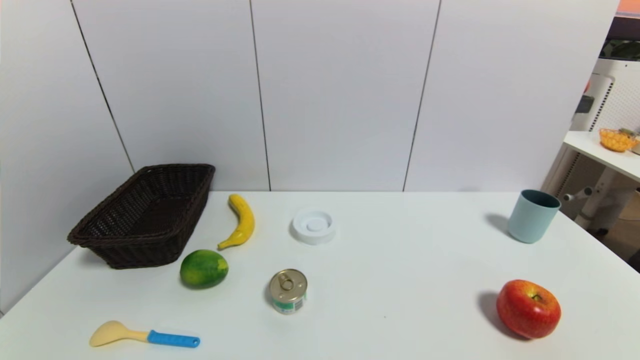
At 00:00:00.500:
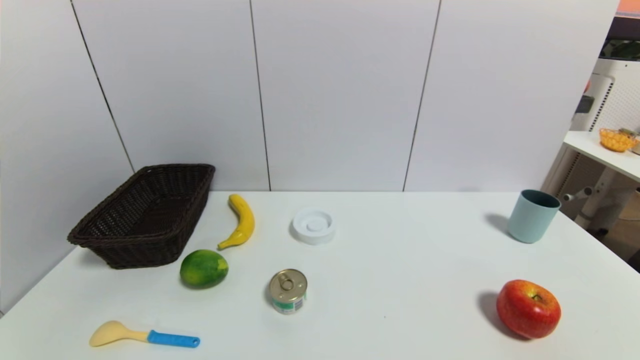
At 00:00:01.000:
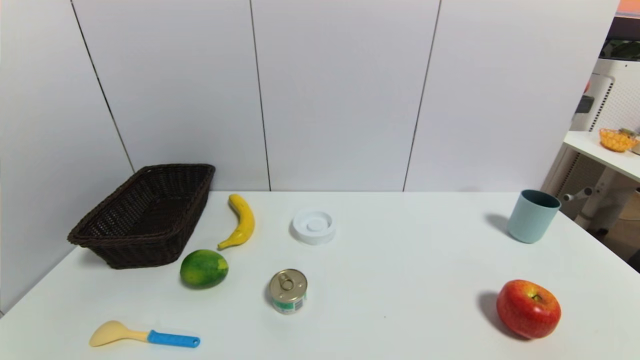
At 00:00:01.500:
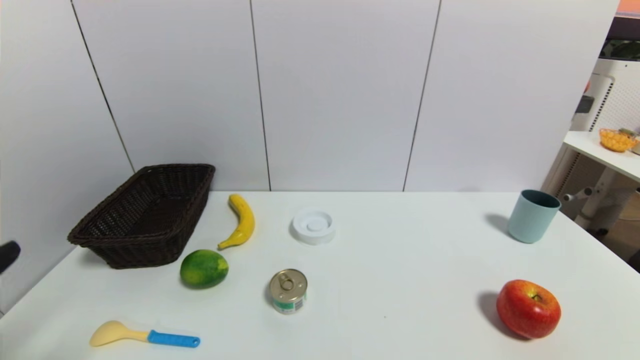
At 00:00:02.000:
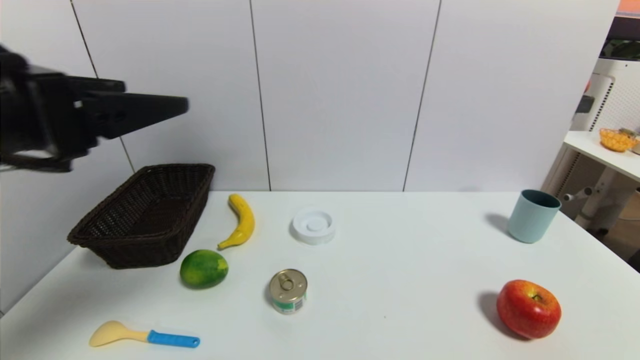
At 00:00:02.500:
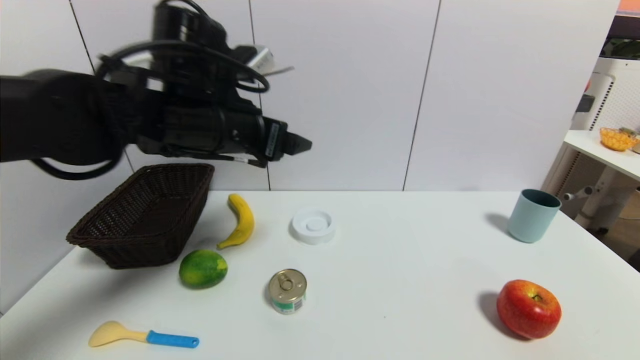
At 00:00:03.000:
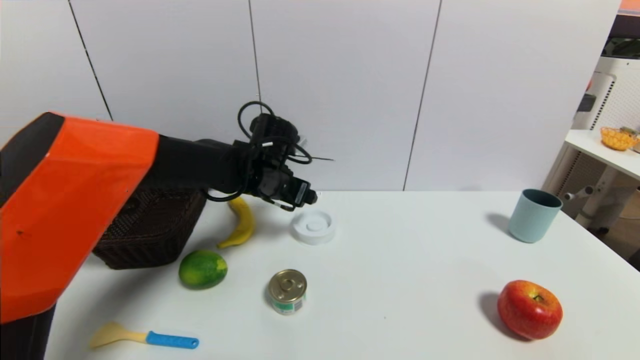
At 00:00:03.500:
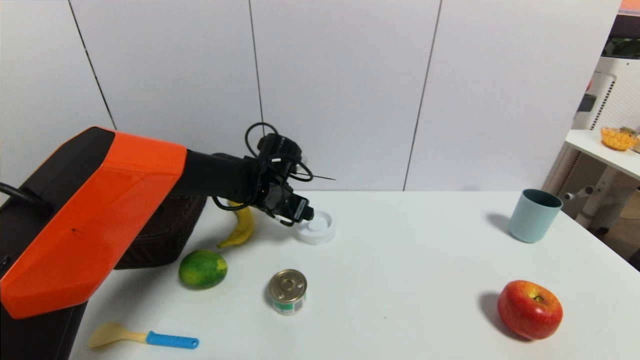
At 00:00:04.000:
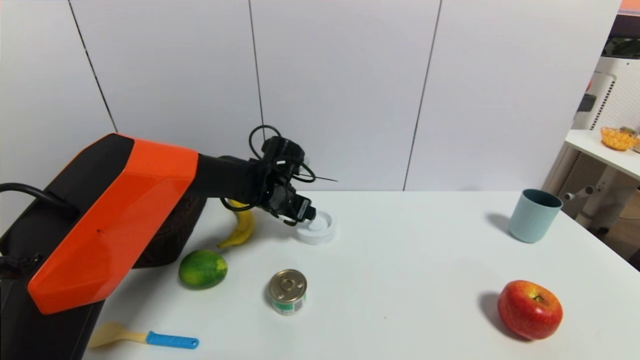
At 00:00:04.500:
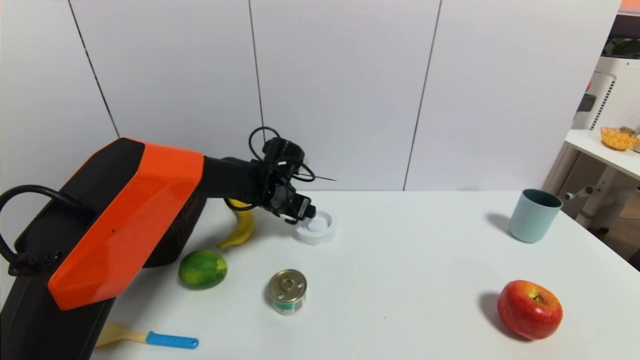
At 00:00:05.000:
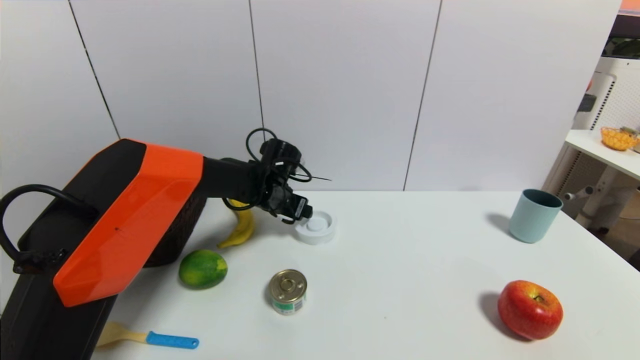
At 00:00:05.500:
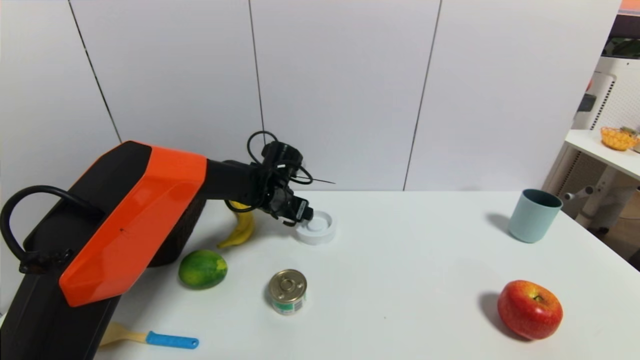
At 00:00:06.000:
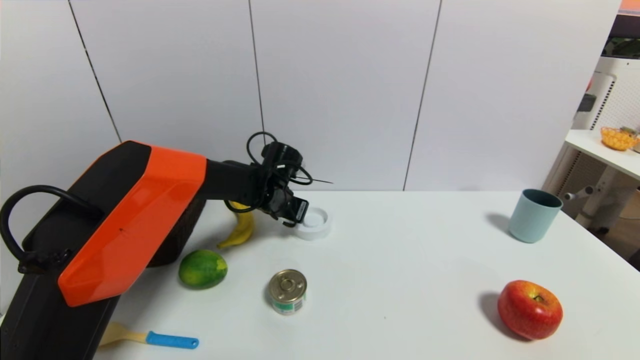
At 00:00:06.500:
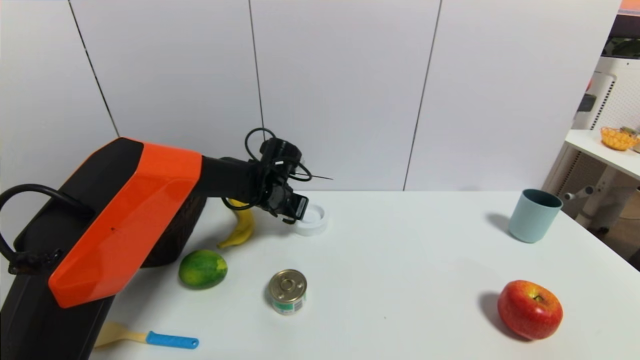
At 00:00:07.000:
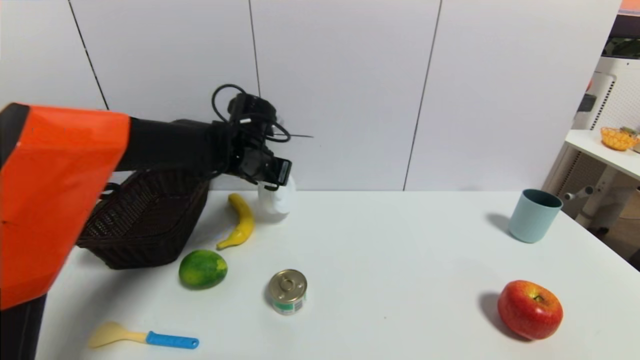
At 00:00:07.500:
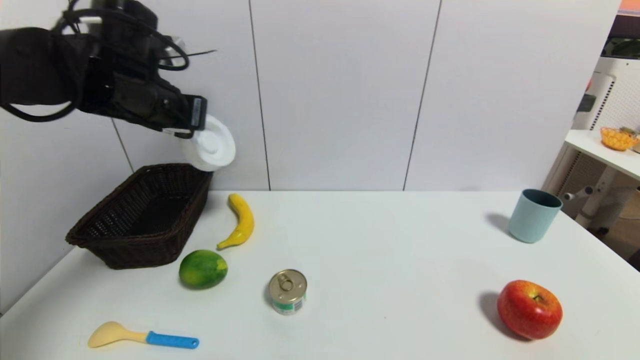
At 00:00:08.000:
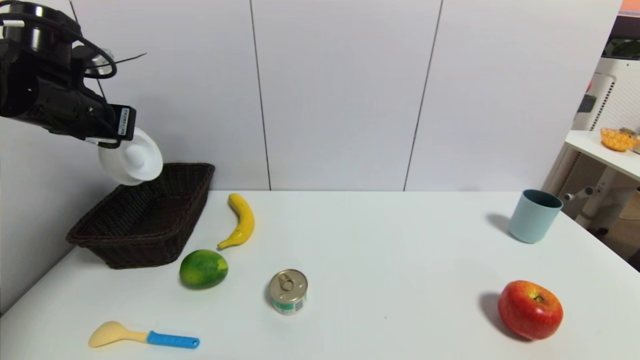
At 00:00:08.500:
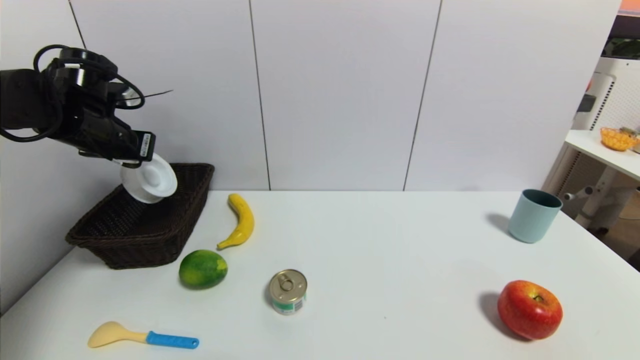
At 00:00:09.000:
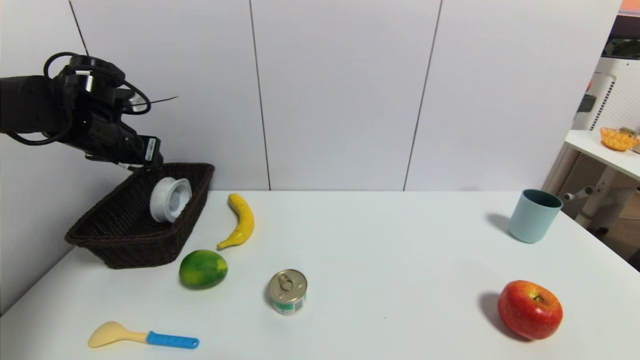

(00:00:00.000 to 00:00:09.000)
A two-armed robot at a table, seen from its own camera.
Task of the whole recording: use a gripper to pick the target object and place on the brown basket.
Step, 00:00:00.000 - 00:00:06.500: Grasp the tape with the left gripper.
00:00:00.000 - 00:00:02.000: The left gripper travels upward and forward by about 30 cm.
00:00:02.000 - 00:00:04.500: The left gripper goes about 40 cm forward, downward and to the right.
00:00:04.500 - 00:00:07.000: The left gripper shifts some 10 cm upward, and closes up.
00:00:07.000 - 00:00:09.000: The left gripper heads to the left, covering approximately 20 cm, and opens.

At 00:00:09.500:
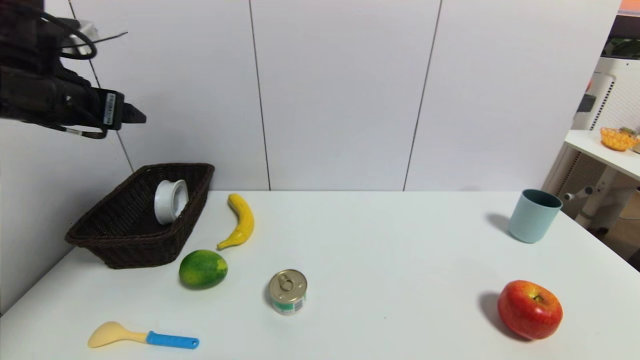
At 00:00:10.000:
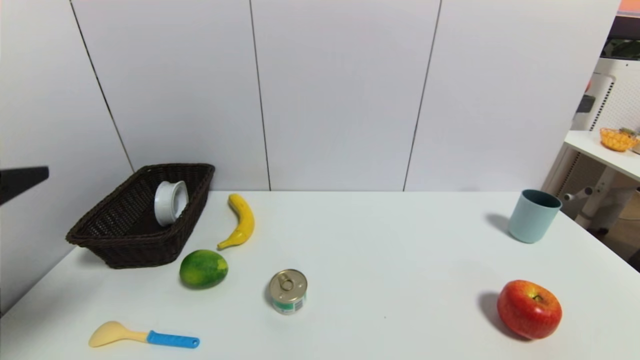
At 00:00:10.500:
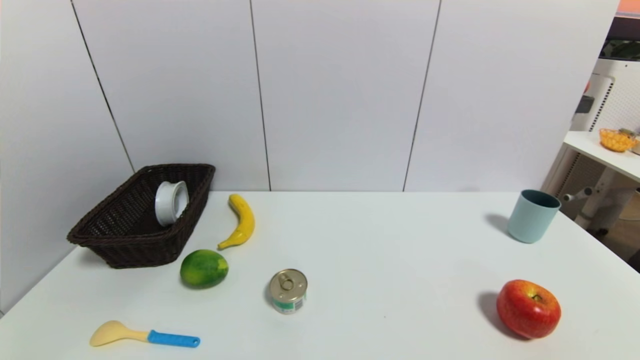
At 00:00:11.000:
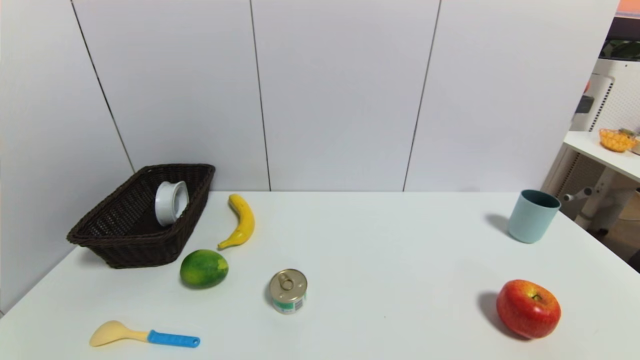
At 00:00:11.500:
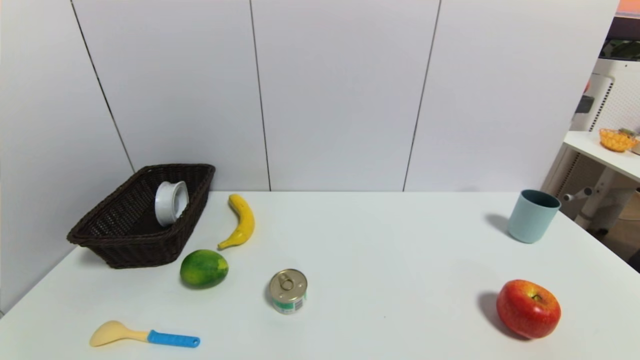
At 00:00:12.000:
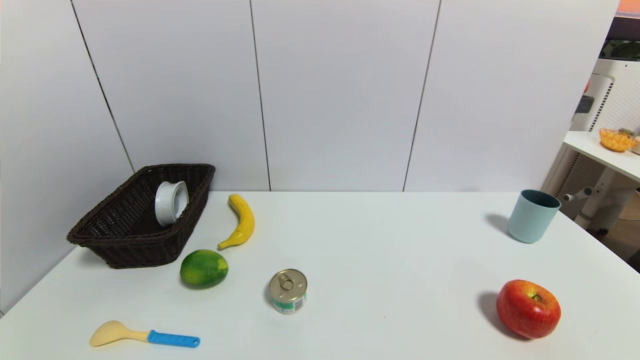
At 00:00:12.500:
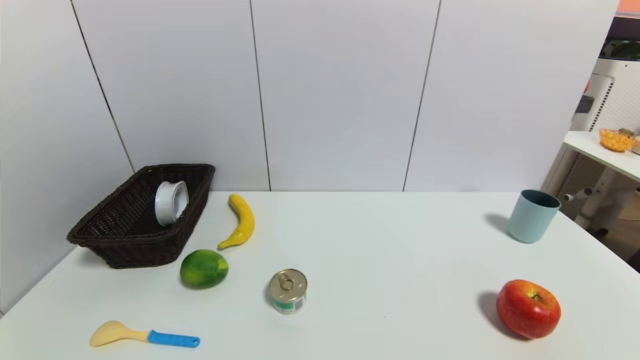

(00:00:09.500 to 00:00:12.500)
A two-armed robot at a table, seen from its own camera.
Task of the whole recording: use a gripper to pick the target object and place on the brown basket.
00:00:09.500 - 00:00:11.000: The left gripper goes approximately 40 cm backward and downward.

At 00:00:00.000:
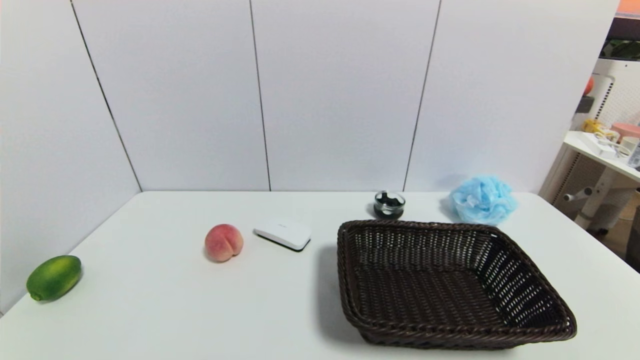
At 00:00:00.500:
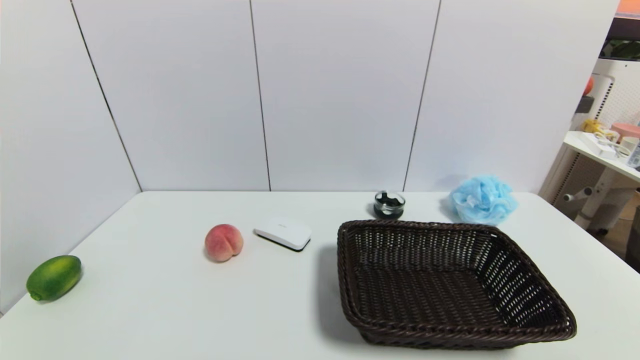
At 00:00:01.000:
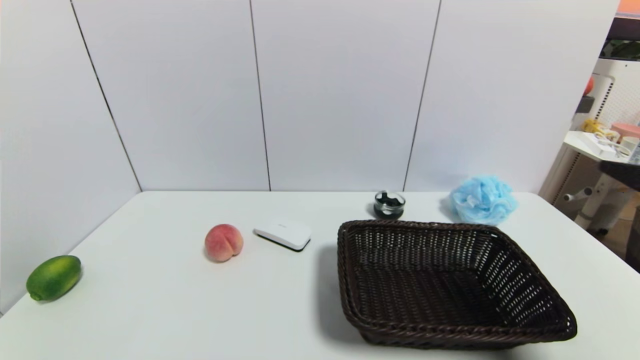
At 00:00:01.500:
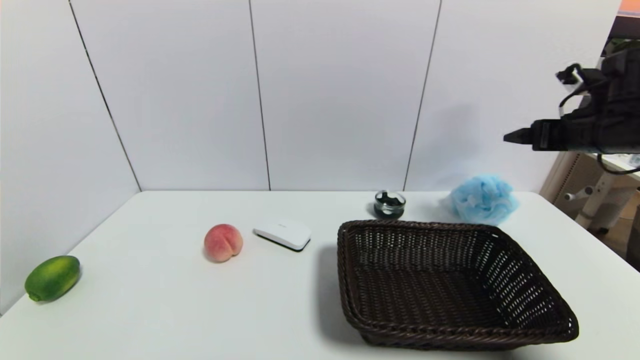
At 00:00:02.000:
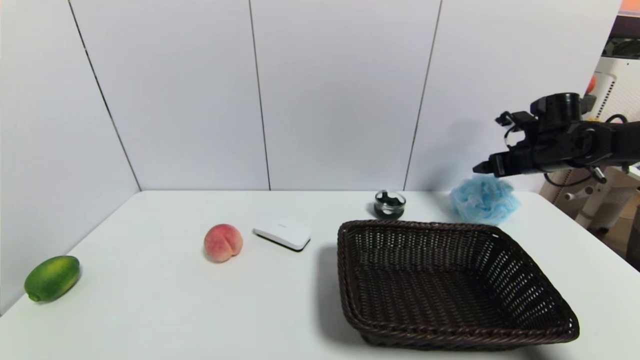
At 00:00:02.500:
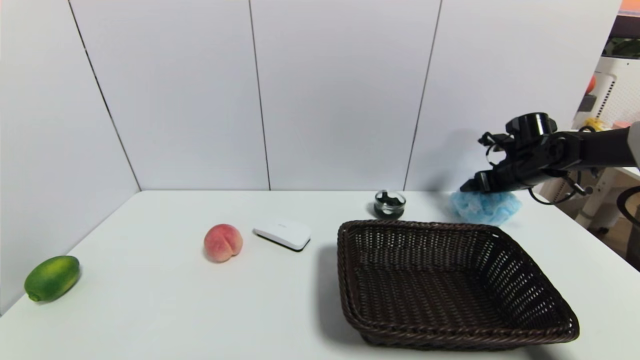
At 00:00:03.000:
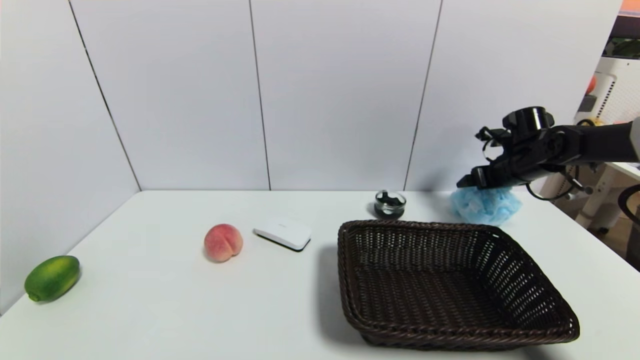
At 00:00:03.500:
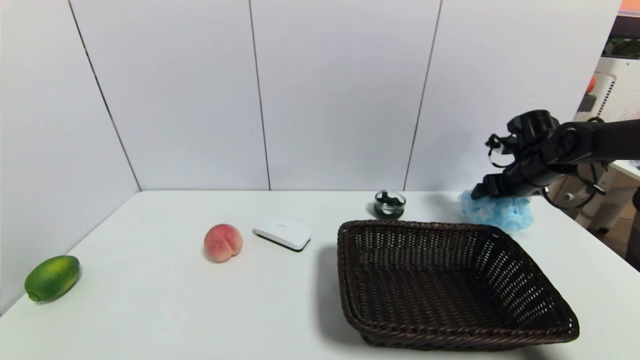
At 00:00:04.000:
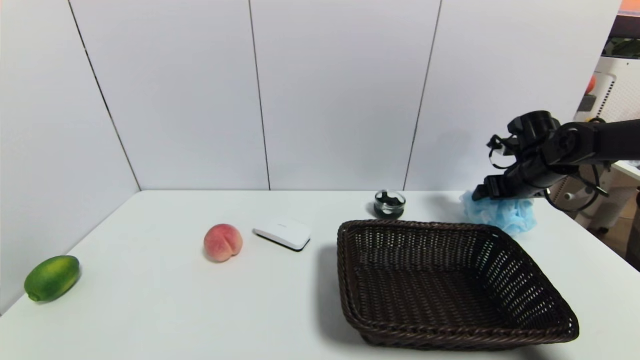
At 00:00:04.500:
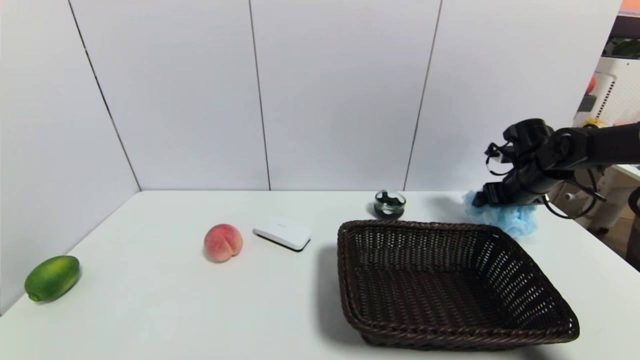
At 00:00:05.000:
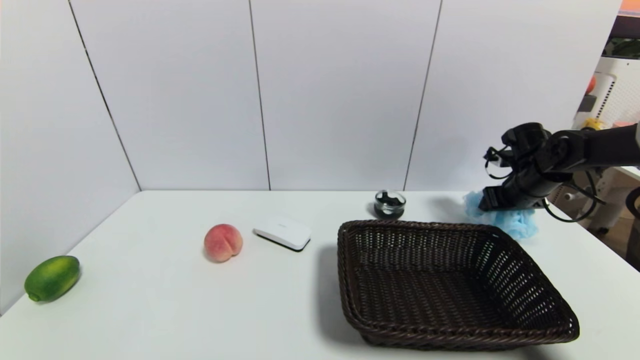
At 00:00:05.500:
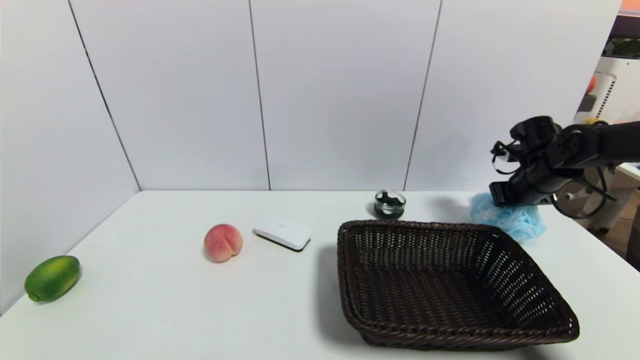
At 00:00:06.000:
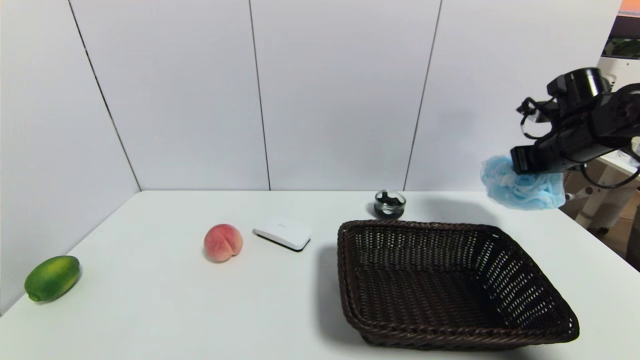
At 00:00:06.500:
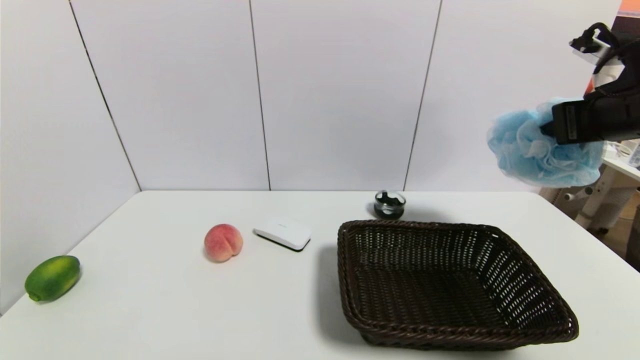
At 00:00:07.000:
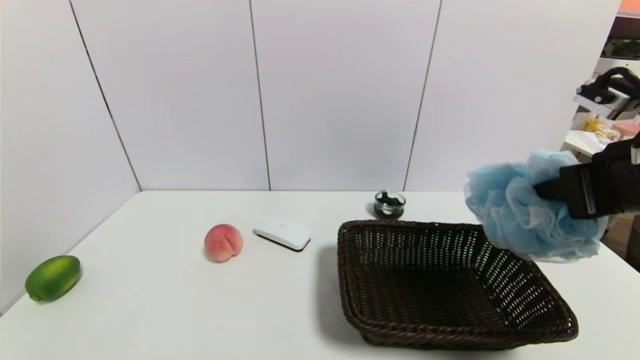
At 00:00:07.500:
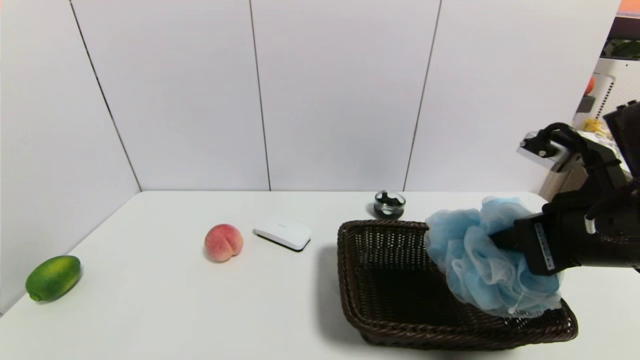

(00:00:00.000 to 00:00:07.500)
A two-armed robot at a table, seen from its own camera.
Task of the whole recording: use a gripper to pick the target object and place on the brown basket.
Step, 00:00:00.000 - 00:00:05.000: Grasp the shower sphere with the right gripper.
00:00:00.000 - 00:00:02.000: The right gripper shifts some 50 cm forward.
00:00:02.000 - 00:00:04.000: The grippers move only a little.
00:00:04.000 - 00:00:05.500: The right gripper closes its fingers.
00:00:05.500 - 00:00:07.500: The right gripper shifts roughly 30 cm backward, to the left and upward.
